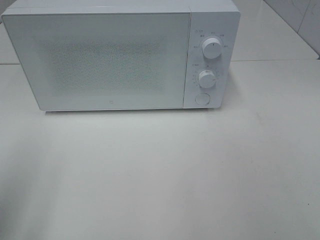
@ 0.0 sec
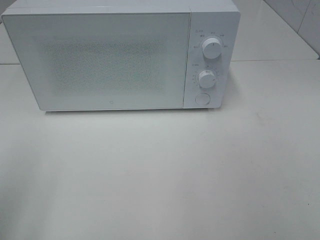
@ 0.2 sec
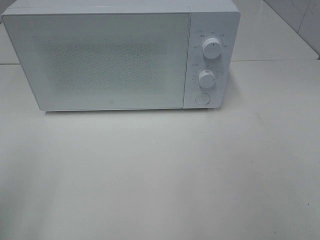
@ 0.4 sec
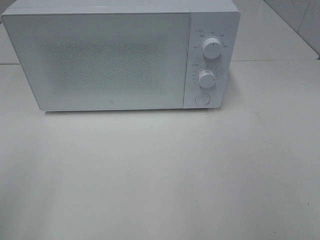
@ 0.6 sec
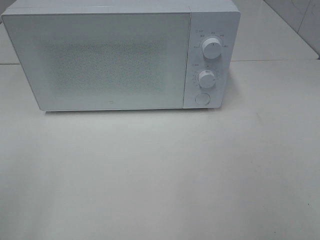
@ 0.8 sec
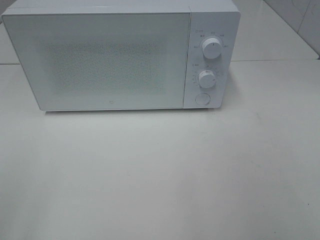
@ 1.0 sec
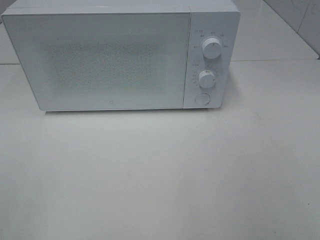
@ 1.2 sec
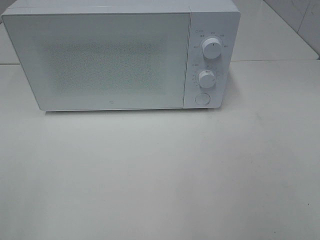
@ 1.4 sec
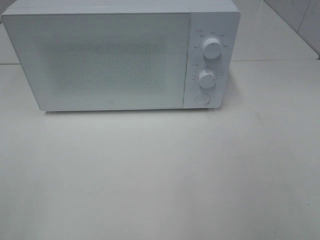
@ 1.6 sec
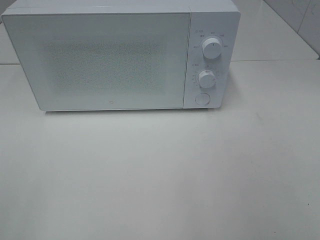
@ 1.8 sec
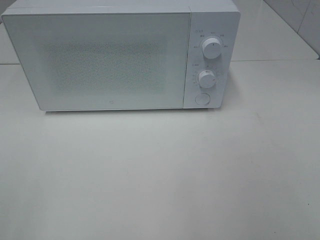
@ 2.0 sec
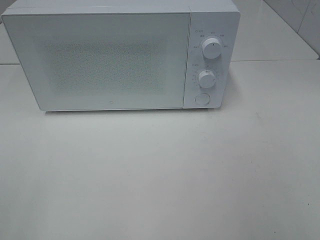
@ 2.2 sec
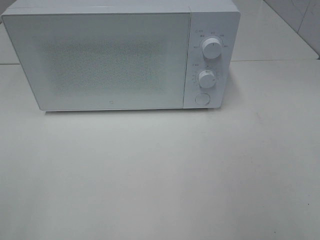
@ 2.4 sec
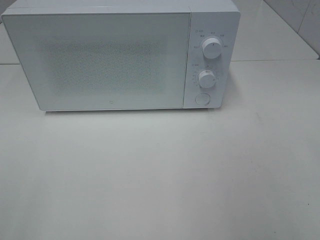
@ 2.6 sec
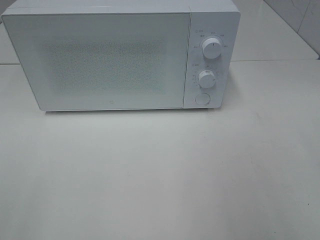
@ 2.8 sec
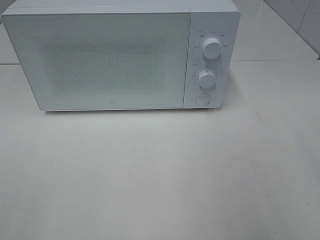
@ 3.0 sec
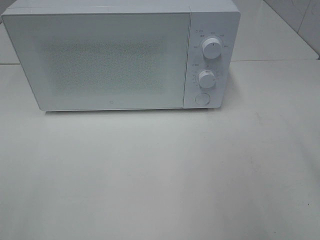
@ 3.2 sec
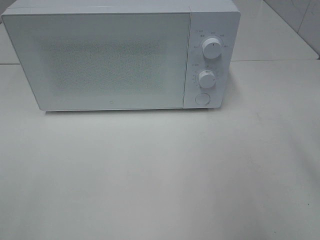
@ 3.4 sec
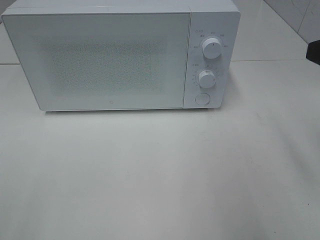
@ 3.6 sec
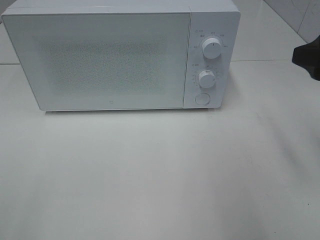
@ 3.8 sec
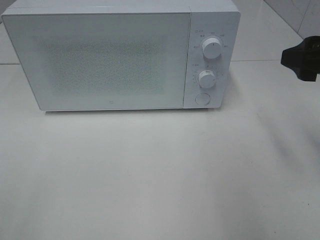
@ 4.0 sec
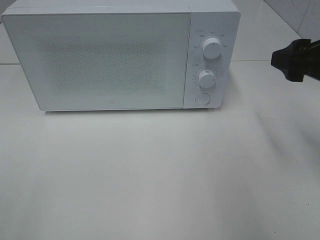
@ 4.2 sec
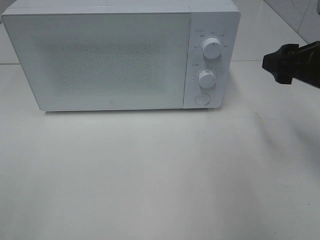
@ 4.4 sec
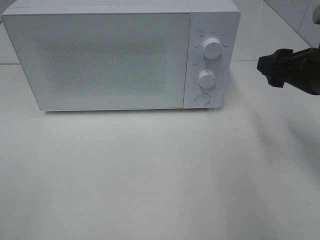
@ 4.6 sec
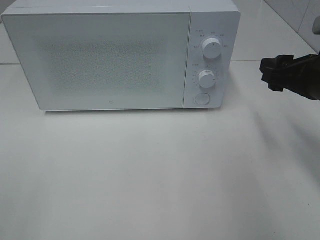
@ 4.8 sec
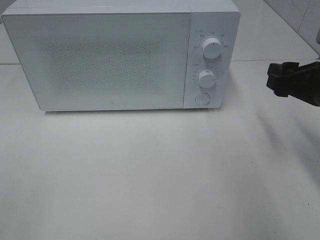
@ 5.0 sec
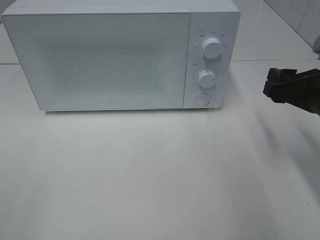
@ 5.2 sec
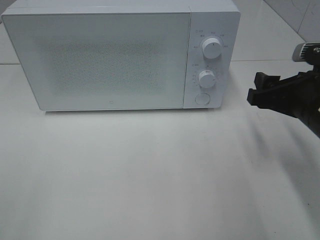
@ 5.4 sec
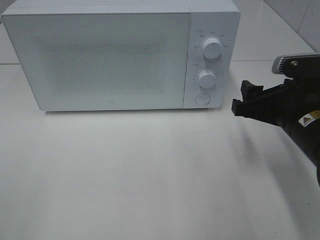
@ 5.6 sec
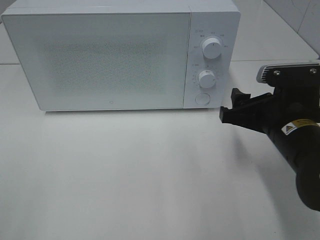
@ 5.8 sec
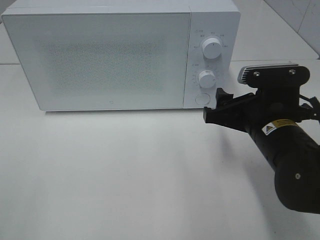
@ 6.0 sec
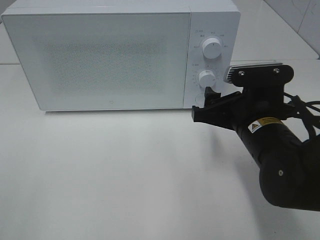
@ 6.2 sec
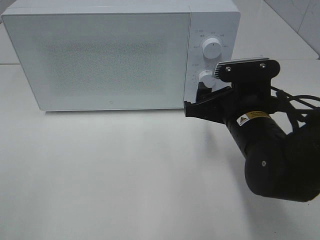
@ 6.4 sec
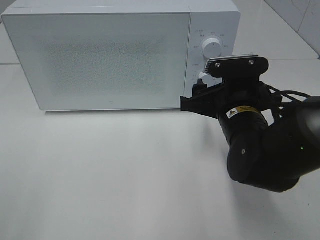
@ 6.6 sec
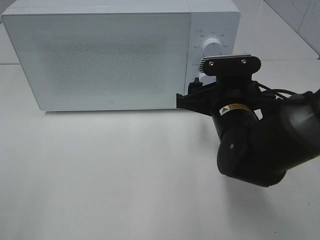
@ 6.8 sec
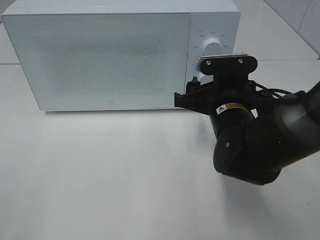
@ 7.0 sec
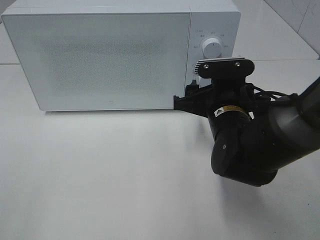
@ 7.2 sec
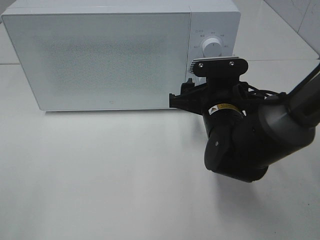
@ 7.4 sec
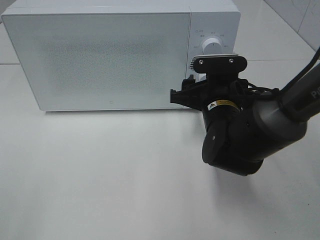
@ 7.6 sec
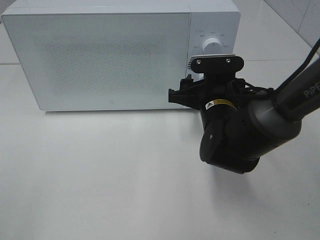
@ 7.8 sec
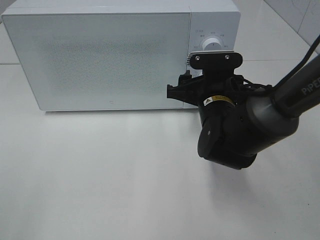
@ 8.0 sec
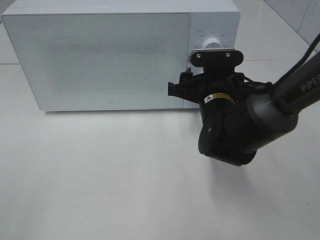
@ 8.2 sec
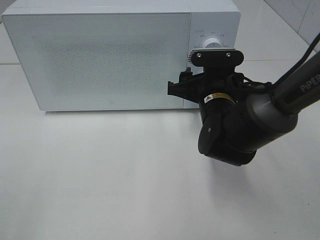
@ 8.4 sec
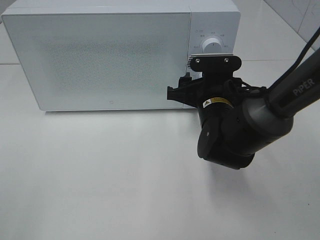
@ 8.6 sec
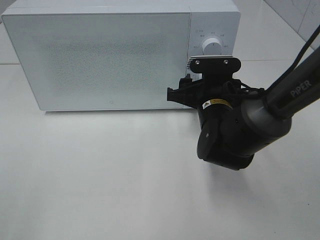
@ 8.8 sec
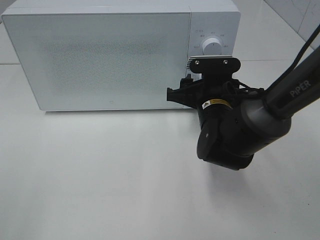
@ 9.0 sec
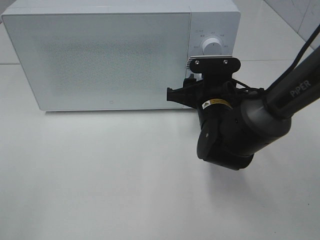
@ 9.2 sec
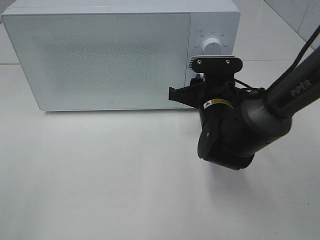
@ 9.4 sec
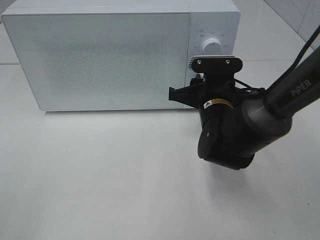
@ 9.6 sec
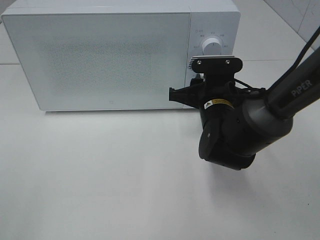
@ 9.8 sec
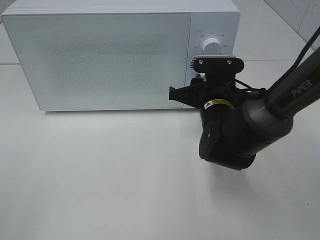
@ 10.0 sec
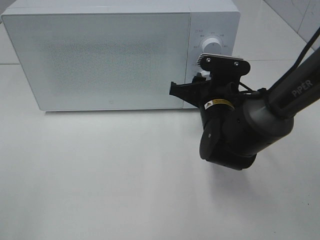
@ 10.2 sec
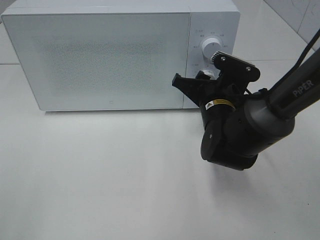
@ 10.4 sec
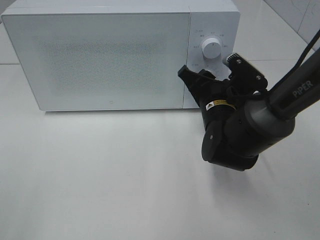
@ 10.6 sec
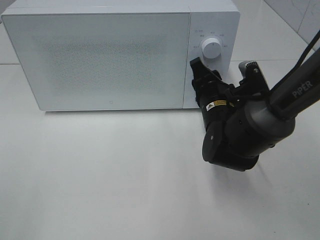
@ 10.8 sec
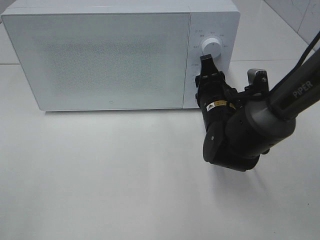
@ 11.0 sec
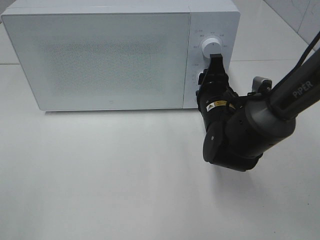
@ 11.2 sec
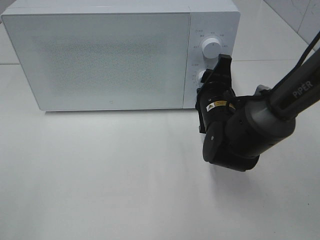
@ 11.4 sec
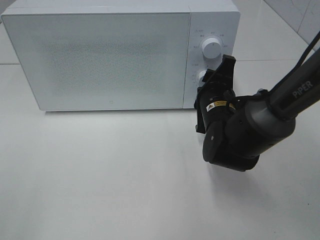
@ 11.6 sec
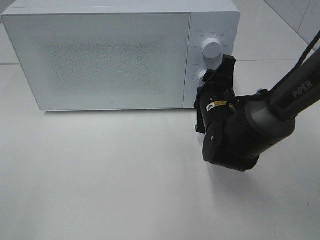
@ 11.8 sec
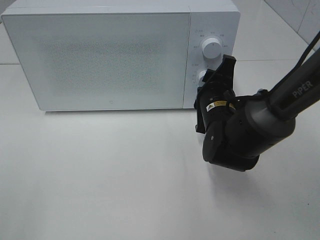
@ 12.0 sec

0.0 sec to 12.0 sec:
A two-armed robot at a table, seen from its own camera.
Task of the whole recording: Heat the burger.
3.0 sec to 4.4 sec: The right gripper goes roughly 15 cm forward and downward.
4.4 sec to 6.0 sec: The right gripper moves downward and to the left, about 15 cm.
6.0 sec to 7.6 sec: The right gripper heads forward and to the left, covering approximately 10 cm.
7.6 sec to 9.0 sec: The grippers make only small movements.

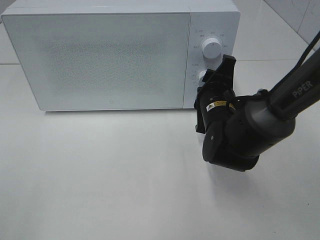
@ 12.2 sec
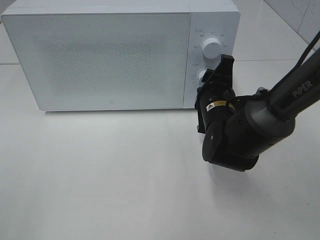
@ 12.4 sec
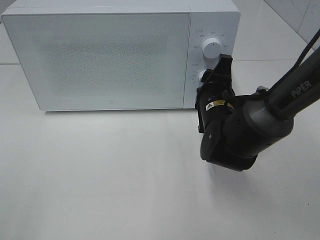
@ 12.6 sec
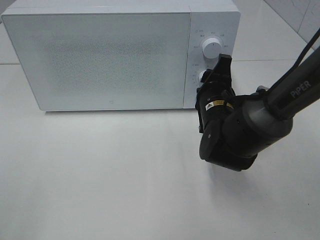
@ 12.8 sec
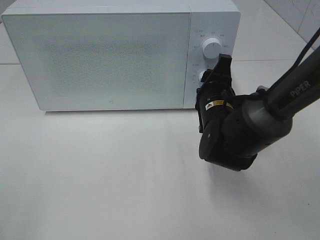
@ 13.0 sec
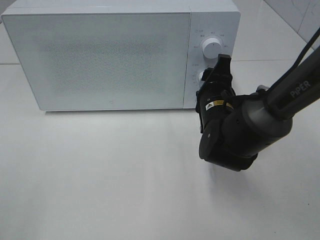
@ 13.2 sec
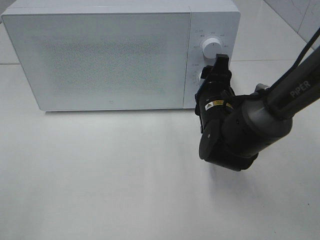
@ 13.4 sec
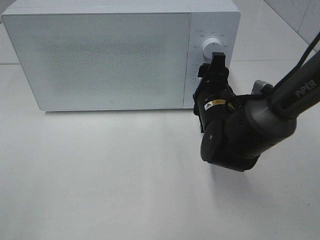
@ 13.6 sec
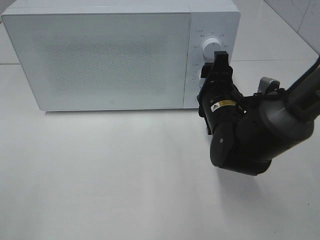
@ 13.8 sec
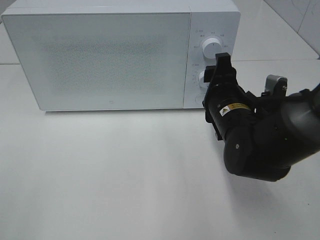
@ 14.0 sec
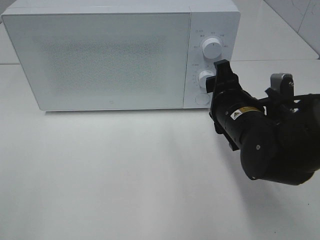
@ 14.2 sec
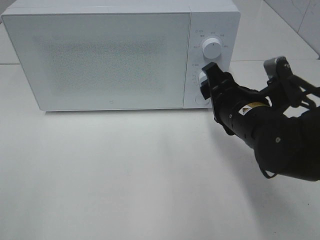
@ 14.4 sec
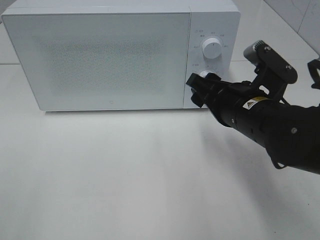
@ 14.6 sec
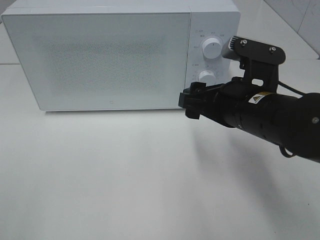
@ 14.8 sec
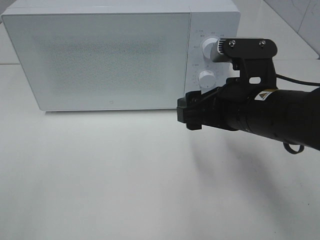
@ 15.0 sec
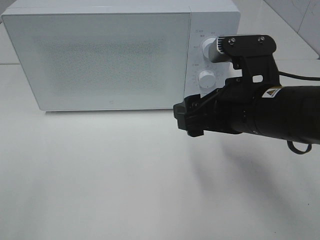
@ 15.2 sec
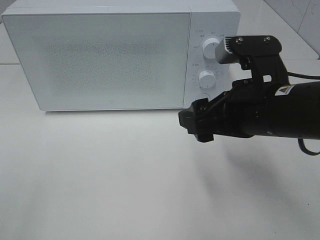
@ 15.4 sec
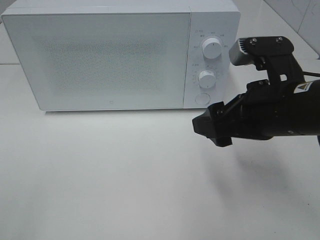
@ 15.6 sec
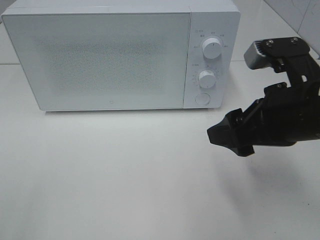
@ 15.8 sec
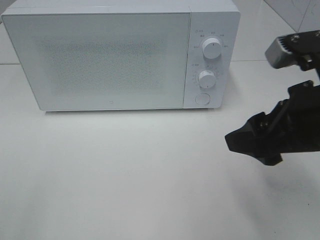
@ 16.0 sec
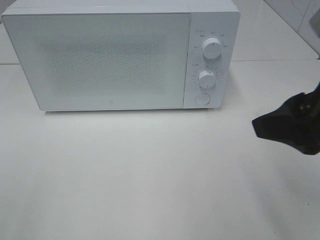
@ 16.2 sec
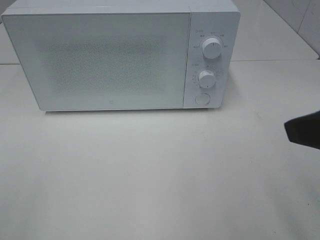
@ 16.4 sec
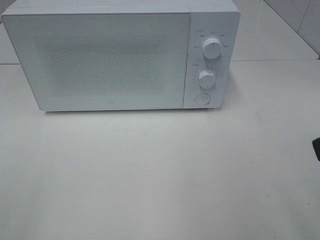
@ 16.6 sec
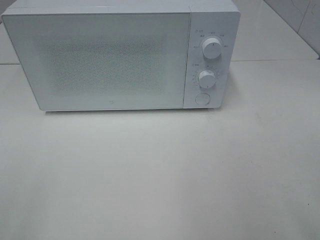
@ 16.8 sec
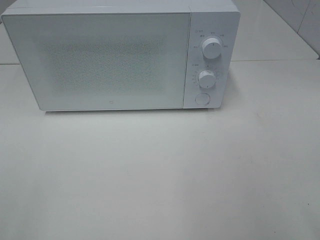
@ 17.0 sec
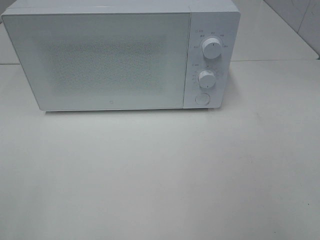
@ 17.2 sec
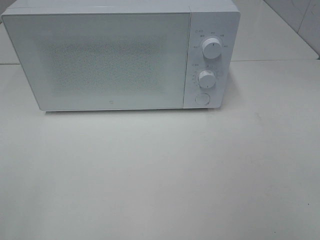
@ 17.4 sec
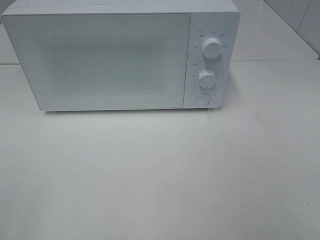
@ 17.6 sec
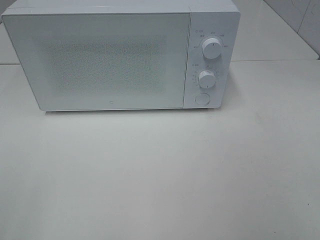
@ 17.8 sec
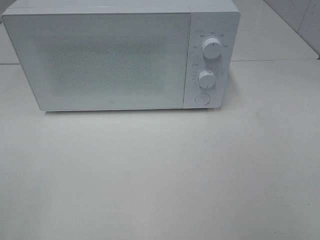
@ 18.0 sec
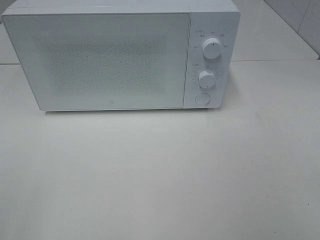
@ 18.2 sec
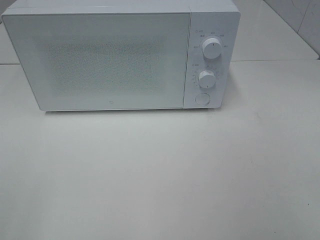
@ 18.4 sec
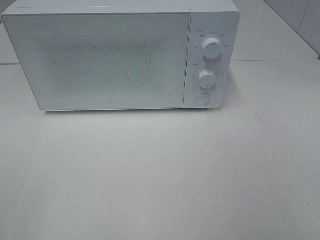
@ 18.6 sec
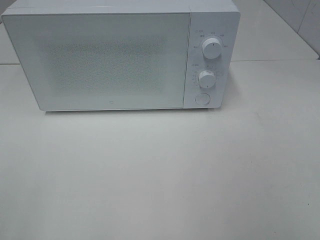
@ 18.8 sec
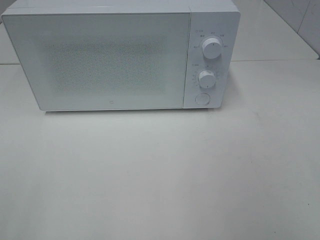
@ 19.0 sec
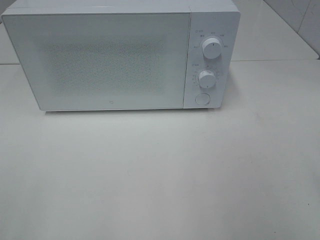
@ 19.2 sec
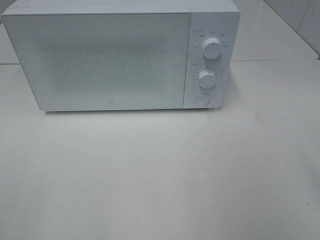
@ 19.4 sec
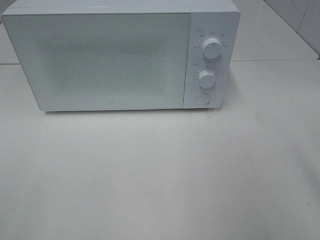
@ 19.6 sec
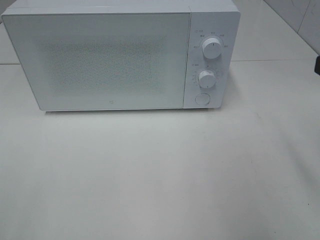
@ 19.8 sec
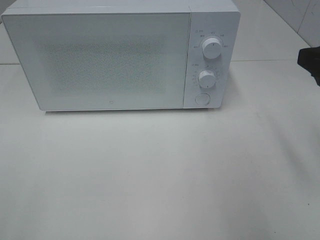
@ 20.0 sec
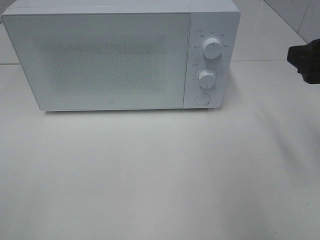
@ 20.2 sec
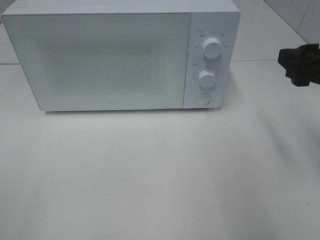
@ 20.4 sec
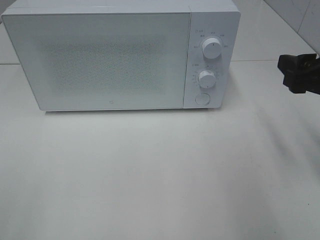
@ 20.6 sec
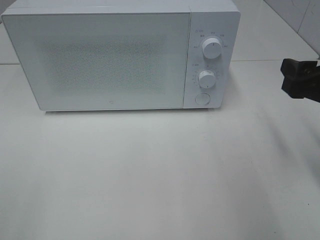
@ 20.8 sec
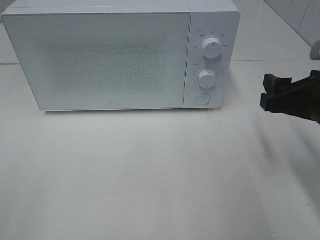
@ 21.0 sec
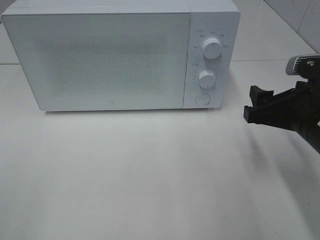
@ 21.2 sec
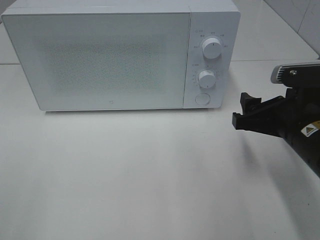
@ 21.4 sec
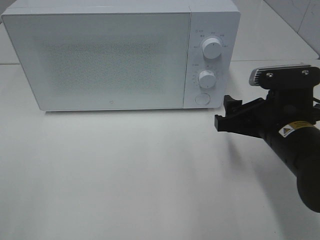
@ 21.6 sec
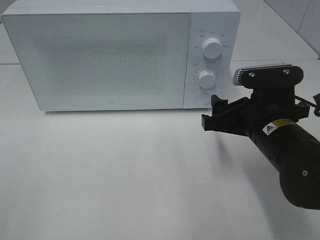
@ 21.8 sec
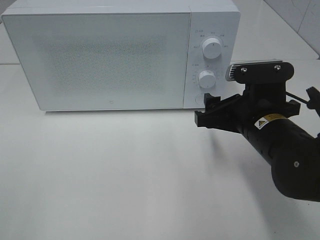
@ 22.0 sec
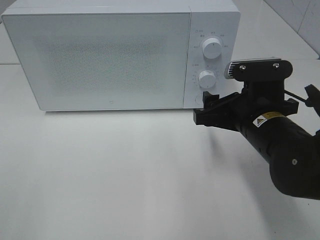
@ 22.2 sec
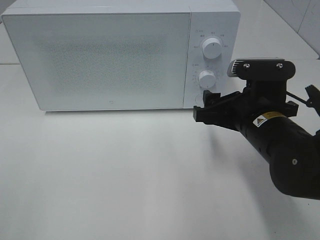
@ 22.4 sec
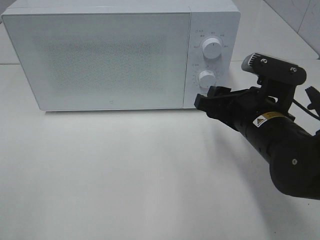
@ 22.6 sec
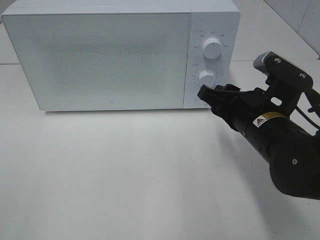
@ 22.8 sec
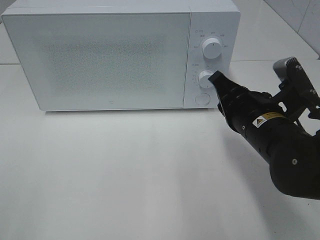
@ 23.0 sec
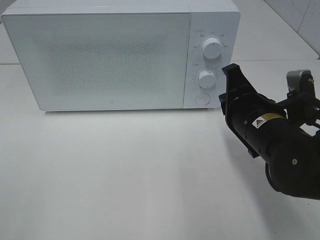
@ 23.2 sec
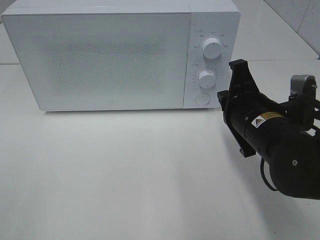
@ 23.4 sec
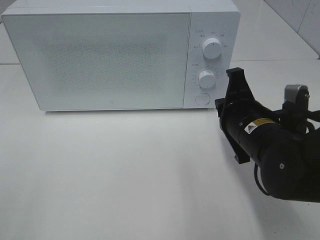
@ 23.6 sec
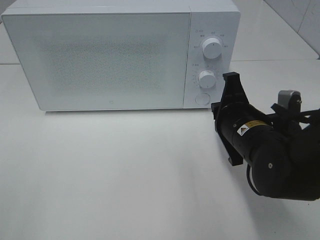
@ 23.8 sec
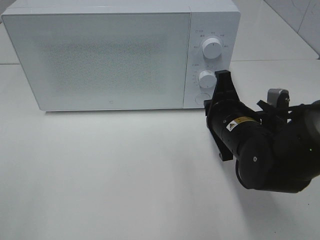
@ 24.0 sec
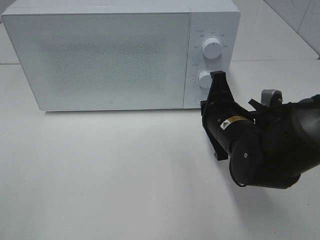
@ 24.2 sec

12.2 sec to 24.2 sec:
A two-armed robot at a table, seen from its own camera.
Task of the whole recording: Heat the burger.
12.2 sec to 13.8 sec: The grippers make only small movements.
13.8 sec to 15.2 sec: The right gripper is displaced backward and upward by approximately 10 cm.
15.2 sec to 16.6 sec: The right gripper goes about 20 cm backward, to the right and upward.
19.8 sec to 21.2 sec: The right gripper travels downward, forward and to the left by about 15 cm.
21.2 sec to 22.6 sec: The right gripper goes roughly 5 cm to the left.
22.6 sec to 24.2 sec: The right gripper changes place by approximately 5 cm, and closes its fingers.
